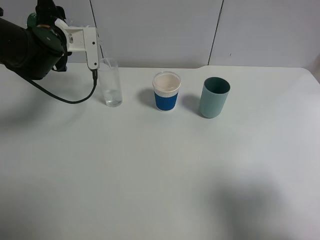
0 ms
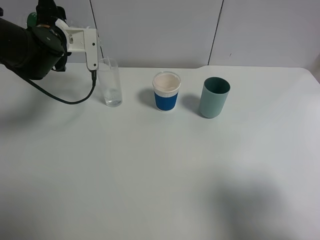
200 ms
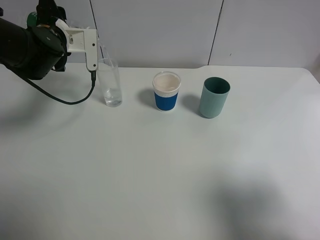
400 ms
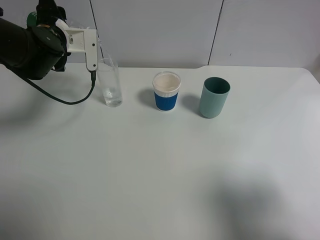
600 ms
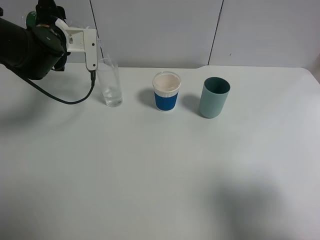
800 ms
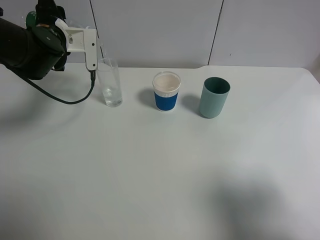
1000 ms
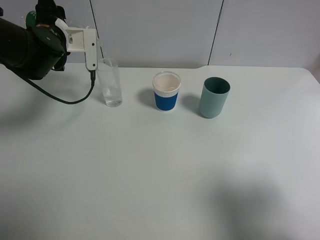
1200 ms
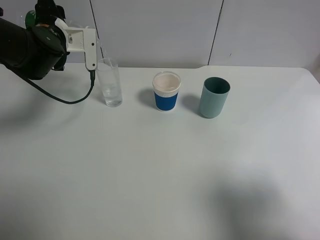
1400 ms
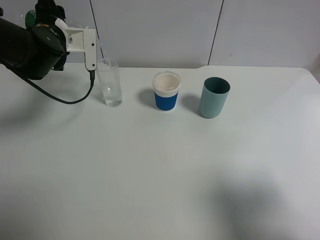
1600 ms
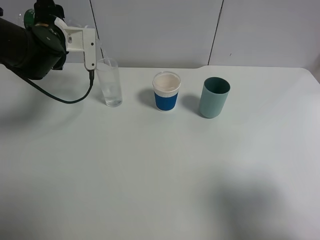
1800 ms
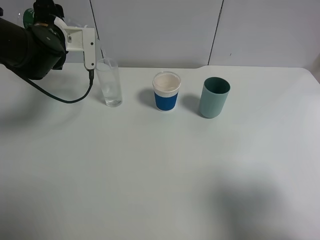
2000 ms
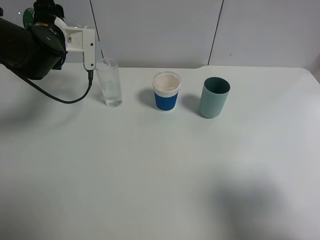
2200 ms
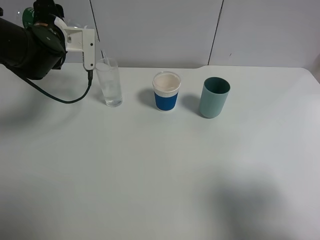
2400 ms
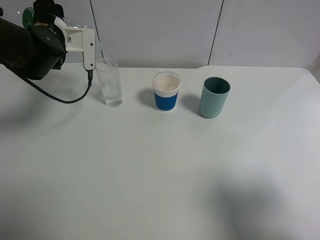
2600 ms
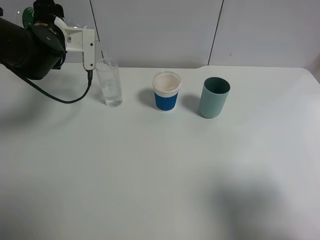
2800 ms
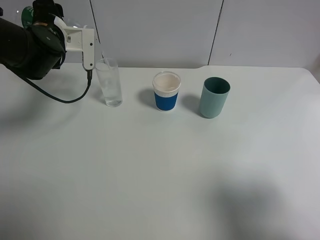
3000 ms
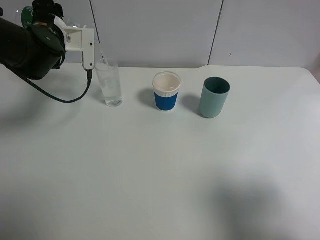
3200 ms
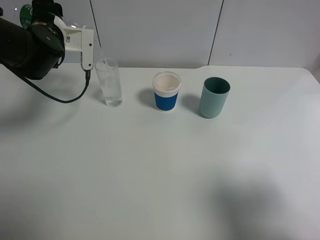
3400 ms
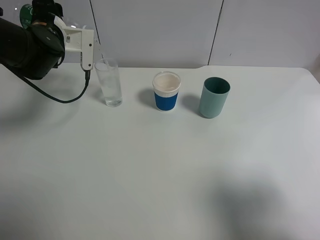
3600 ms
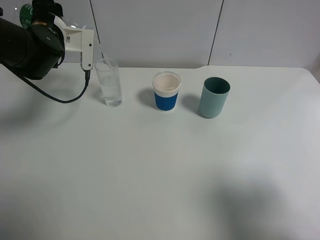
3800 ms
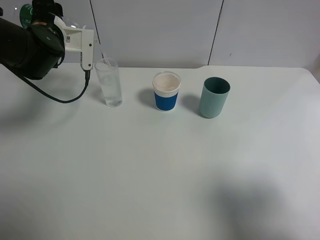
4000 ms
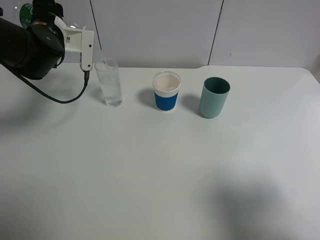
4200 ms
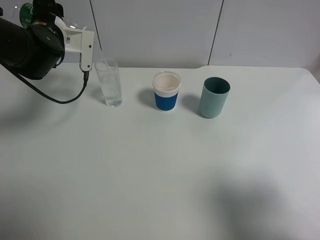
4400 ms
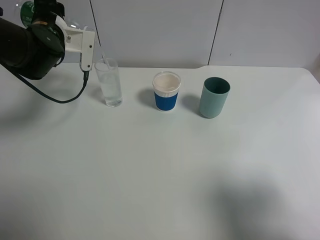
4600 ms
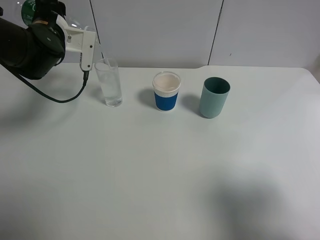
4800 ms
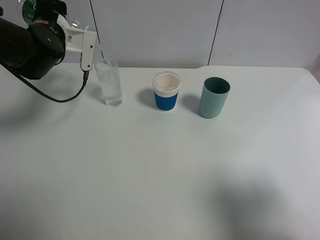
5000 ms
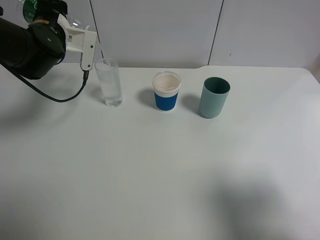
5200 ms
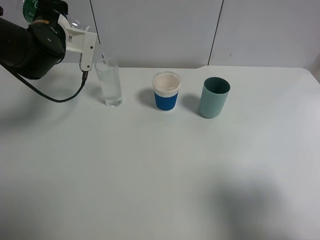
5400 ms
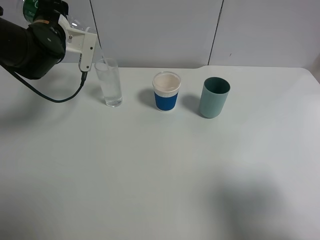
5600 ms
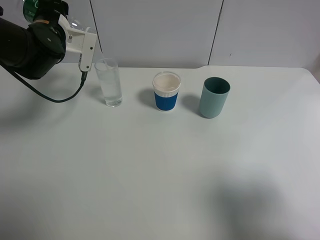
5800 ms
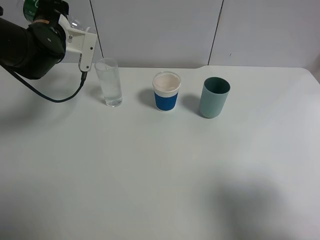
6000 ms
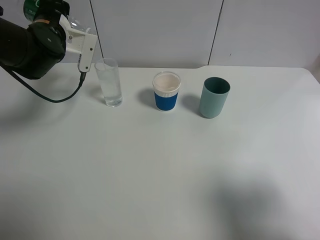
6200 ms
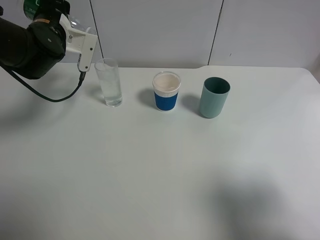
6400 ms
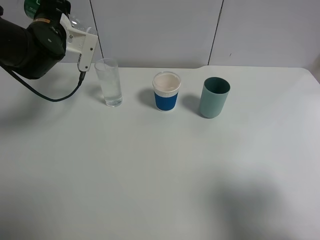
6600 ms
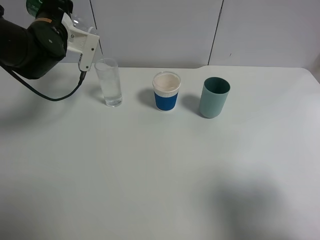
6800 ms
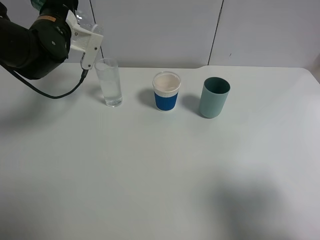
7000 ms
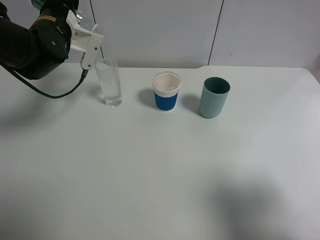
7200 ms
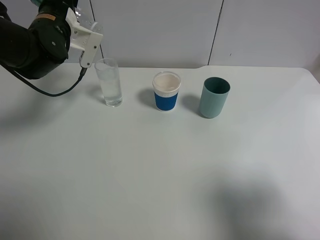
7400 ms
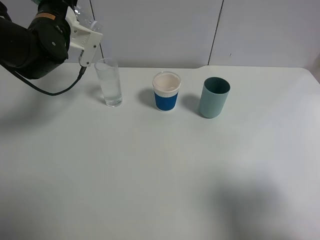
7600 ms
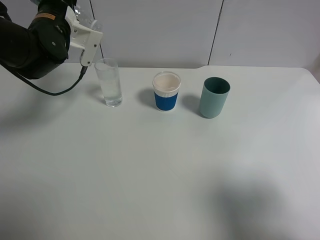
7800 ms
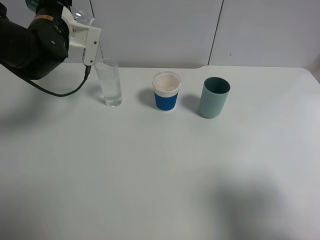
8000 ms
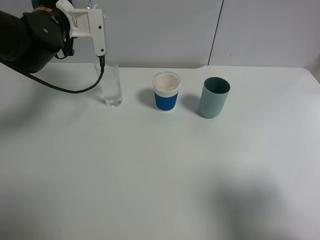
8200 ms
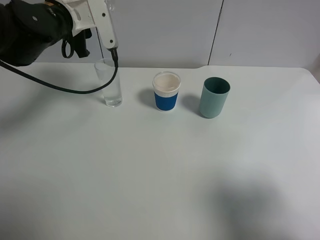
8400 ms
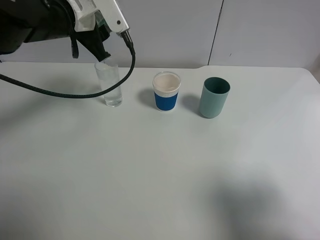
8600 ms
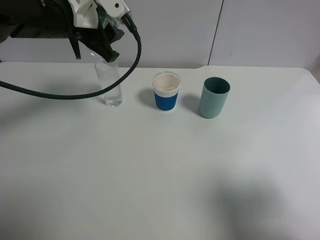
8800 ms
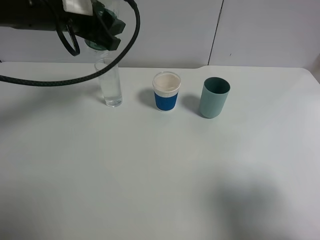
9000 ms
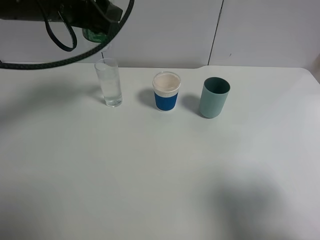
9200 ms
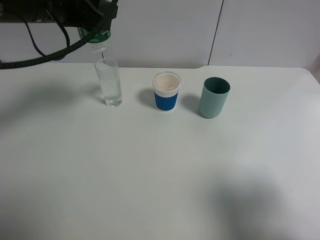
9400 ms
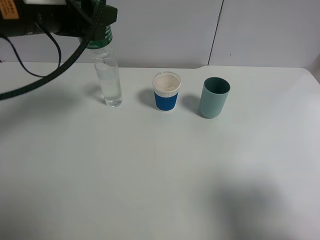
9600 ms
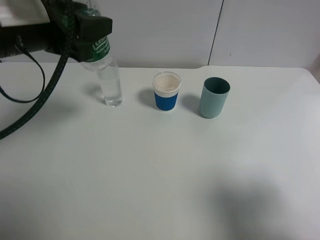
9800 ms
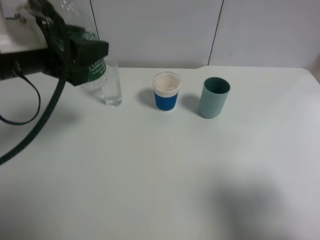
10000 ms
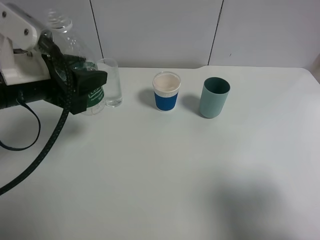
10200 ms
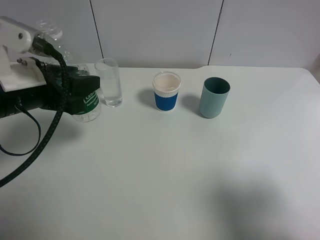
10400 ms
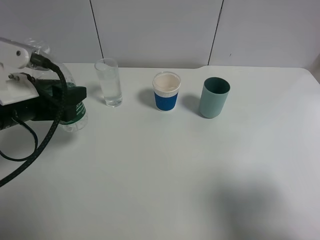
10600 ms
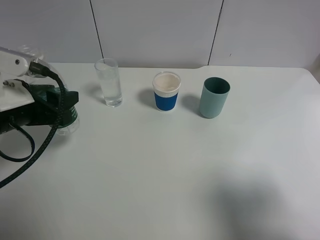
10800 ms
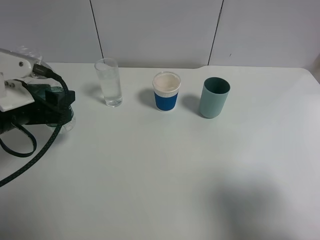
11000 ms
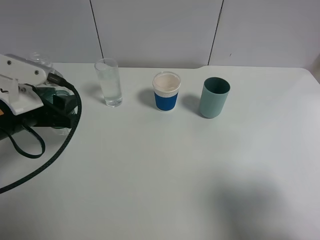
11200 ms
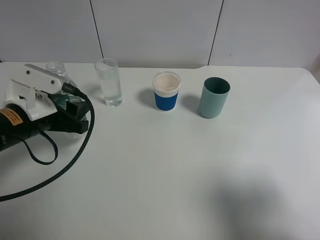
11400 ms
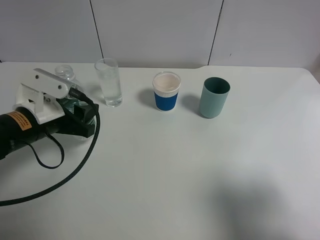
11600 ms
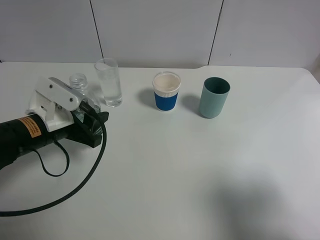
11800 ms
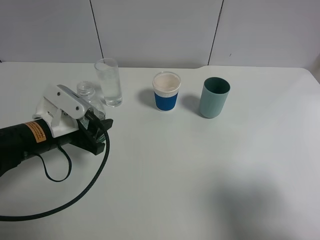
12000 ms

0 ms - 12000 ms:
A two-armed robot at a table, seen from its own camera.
Task of the whole recording: use a gripper to hold the bottle of the drink and pour it into a random cup.
Step, 0 ms - 8600 ms: Pour the mineral water into the glass with the left gripper.
0 ms - 1600 ms: Both grippers stay put.
1600 ms - 3000 ms: Neither gripper changes place.
3000 ms - 4400 ms: Both grippers stay about where they are.
4400 ms - 7600 ms: There are only small adjustments of the grippers.
7600 ms - 9000 ms: The left gripper is displaced backward, upward and to the right by about 10 cm.
9000 ms - 10400 ms: The left gripper heads backward and downward, covering some 15 cm.
10400 ms - 12000 ms: The left gripper goes roughly 10 cm downward.

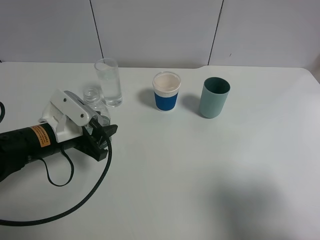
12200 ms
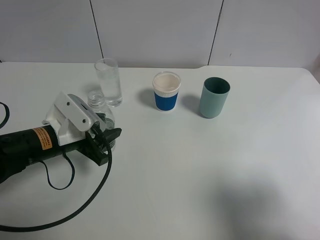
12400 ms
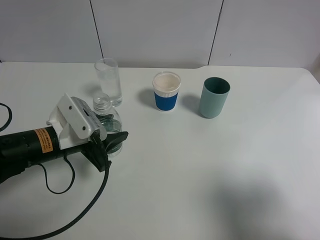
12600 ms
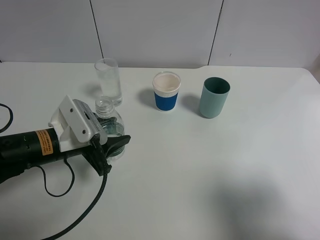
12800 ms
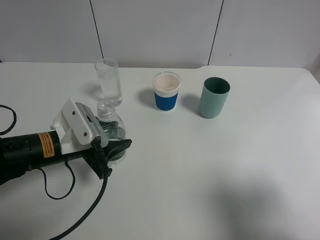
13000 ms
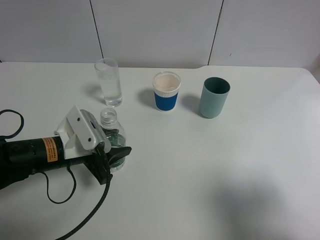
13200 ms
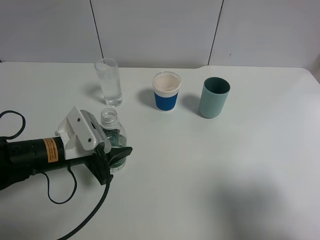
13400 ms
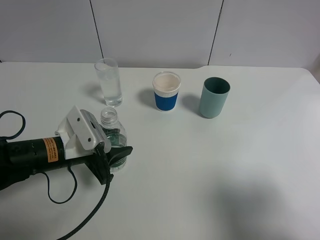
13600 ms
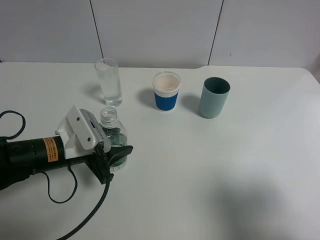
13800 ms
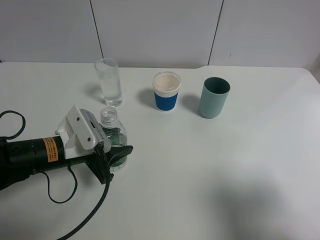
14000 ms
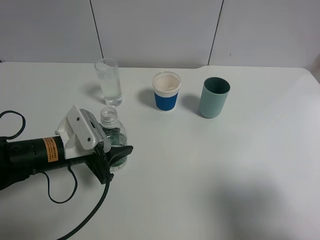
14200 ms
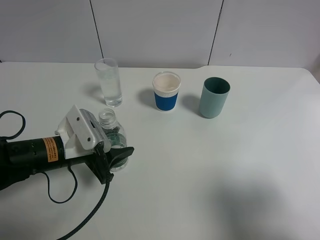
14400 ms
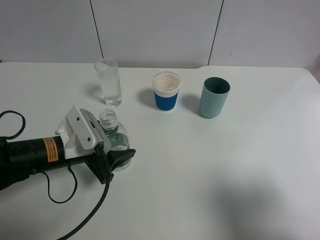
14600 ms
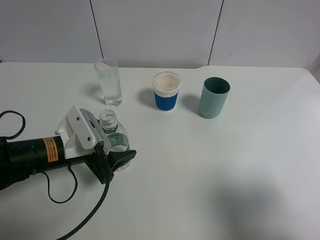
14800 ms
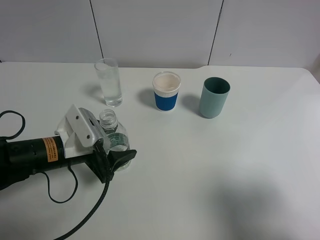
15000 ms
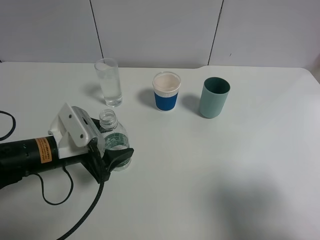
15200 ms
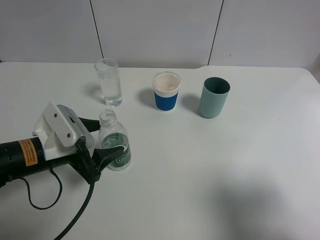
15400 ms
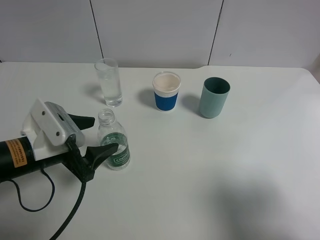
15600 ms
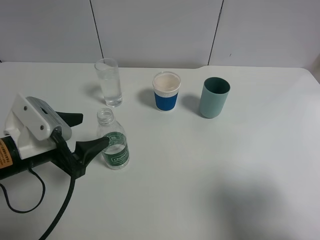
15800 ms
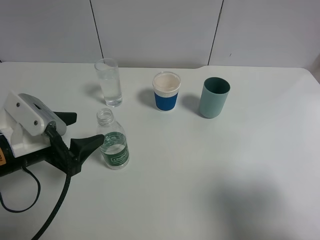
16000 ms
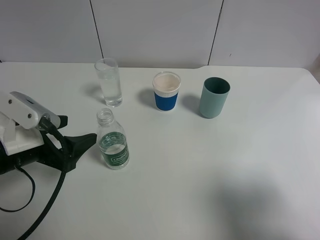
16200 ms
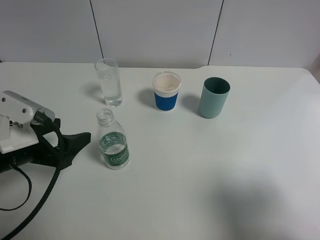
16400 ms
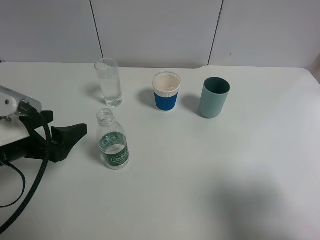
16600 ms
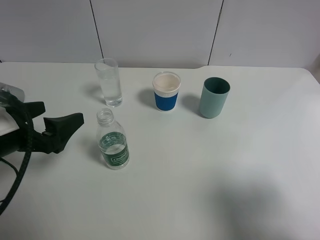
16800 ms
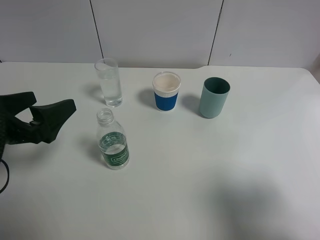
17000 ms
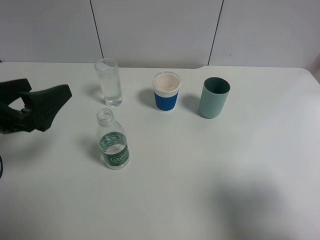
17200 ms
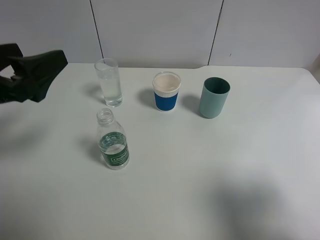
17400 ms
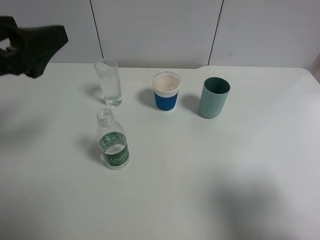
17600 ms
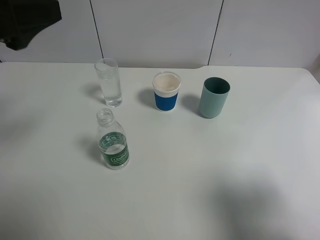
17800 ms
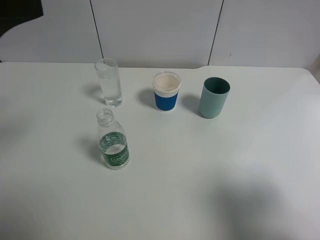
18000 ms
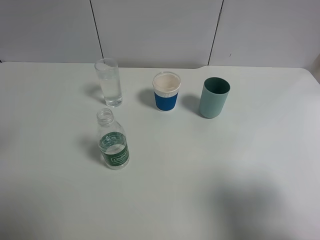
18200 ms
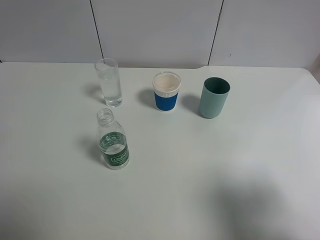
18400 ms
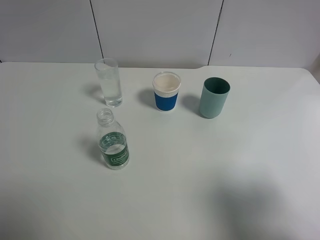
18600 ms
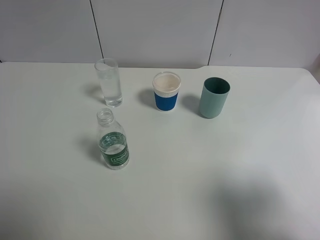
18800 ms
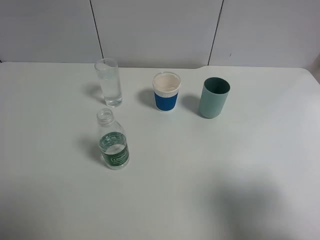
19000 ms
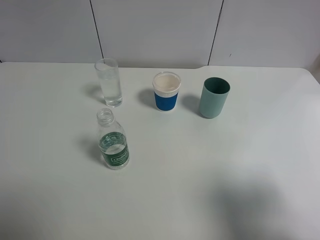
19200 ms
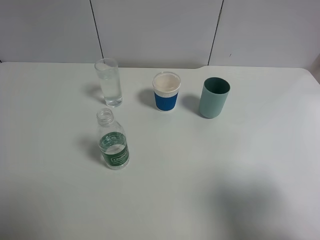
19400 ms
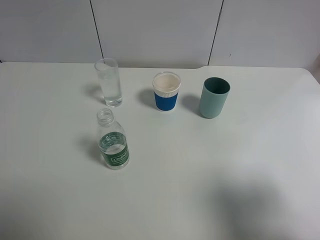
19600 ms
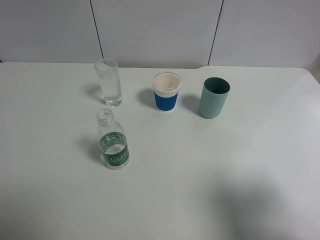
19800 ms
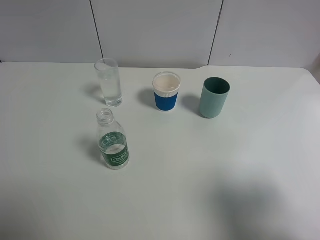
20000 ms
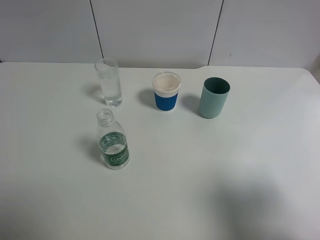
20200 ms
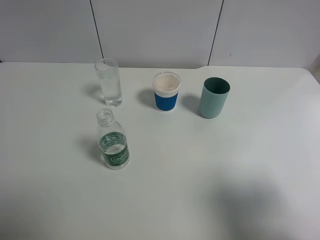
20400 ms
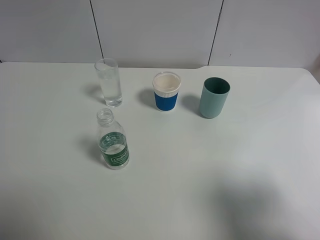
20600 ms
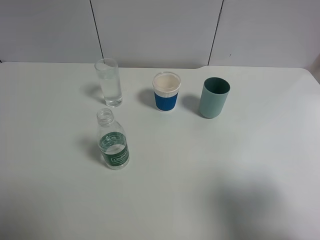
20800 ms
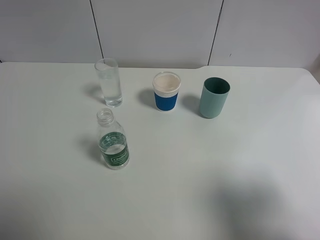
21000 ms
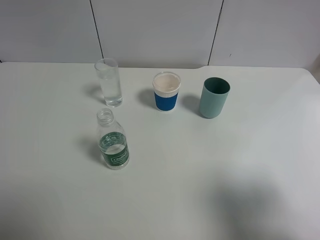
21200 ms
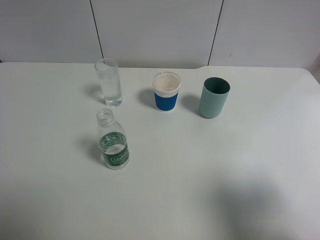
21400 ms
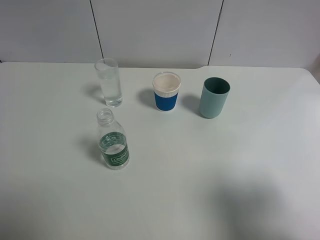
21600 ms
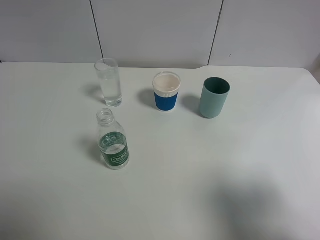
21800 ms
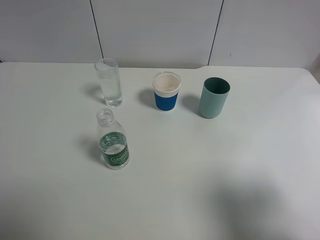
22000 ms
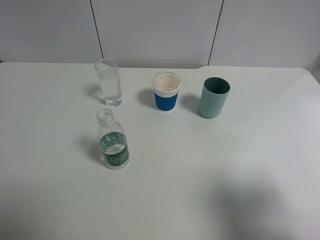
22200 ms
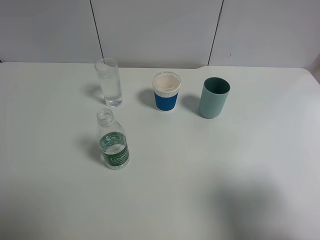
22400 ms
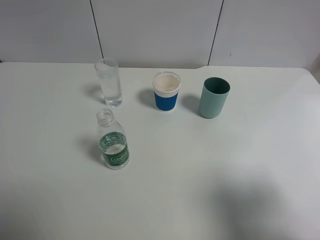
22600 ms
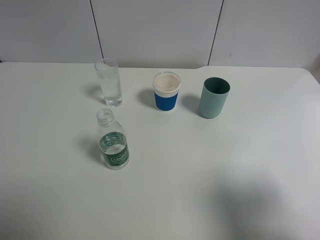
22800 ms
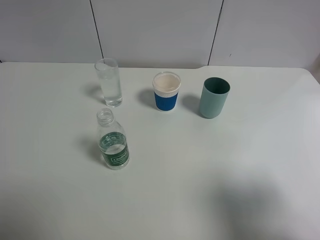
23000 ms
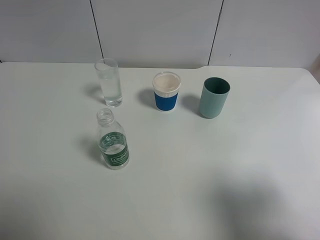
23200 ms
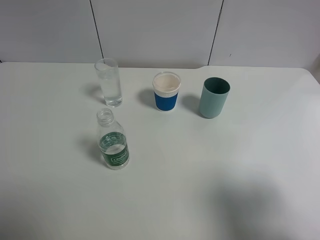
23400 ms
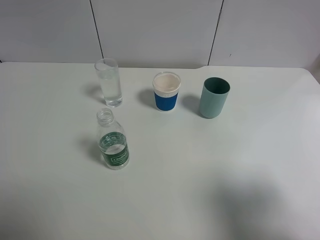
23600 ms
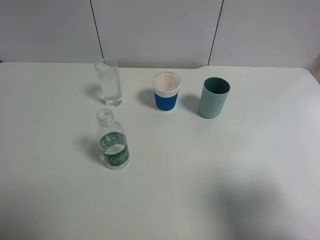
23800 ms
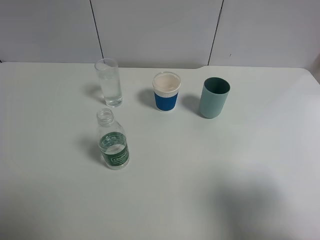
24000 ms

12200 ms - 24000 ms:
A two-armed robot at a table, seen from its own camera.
Task of the whole recording: use a gripper to hold the bottle of the drink and pour it into a random cup.
Step, 12200 ms - 16200 ms: Place the mineral water bottle on the table with the left gripper.
12200 ms - 13600 ms: There are only small adjustments of the grippers.
13600 ms - 15200 ms: The left gripper opens.
15200 ms - 16600 ms: The left gripper shifts some 10 cm upward and to the left.
16600 ms - 18200 ms: The left gripper travels upward by some 20 cm.
21000 ms - 22600 ms: Neither gripper changes place.
